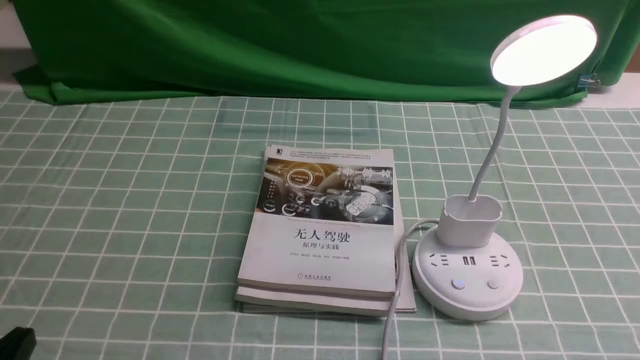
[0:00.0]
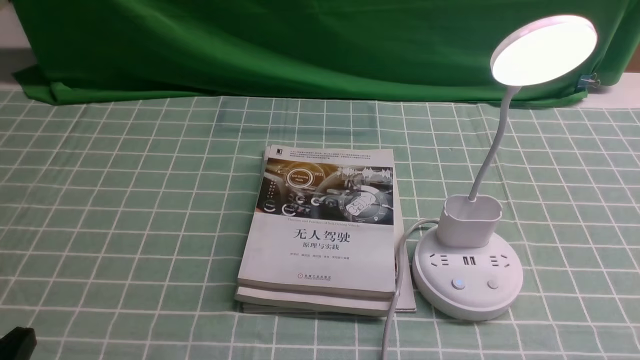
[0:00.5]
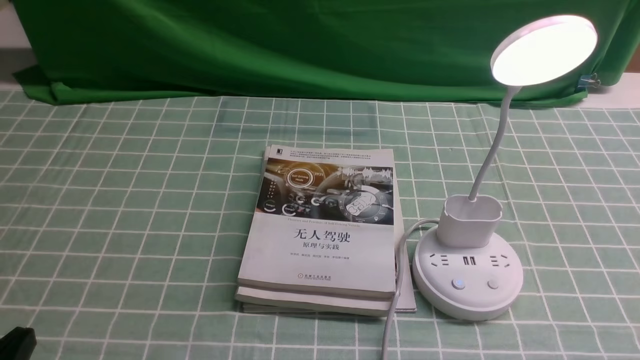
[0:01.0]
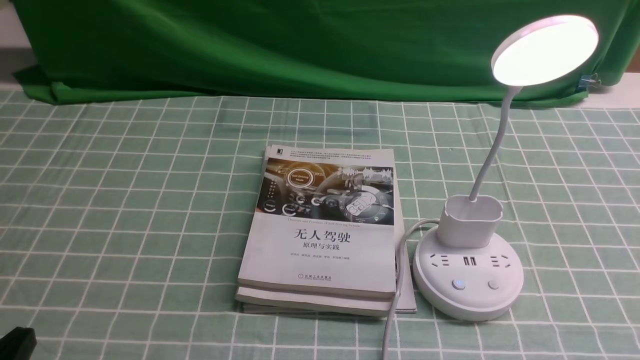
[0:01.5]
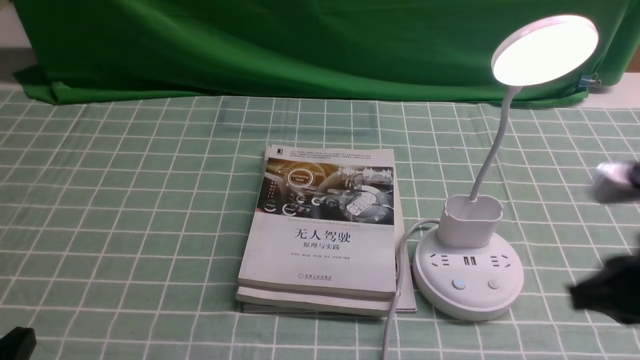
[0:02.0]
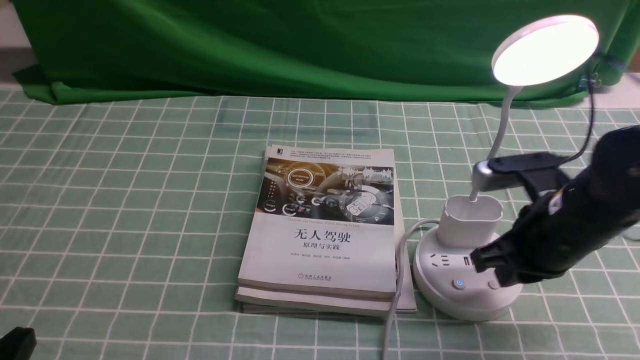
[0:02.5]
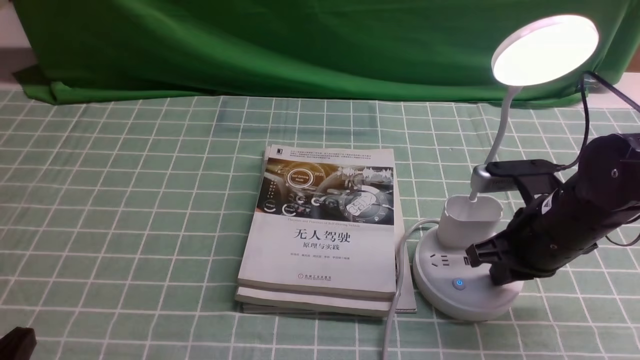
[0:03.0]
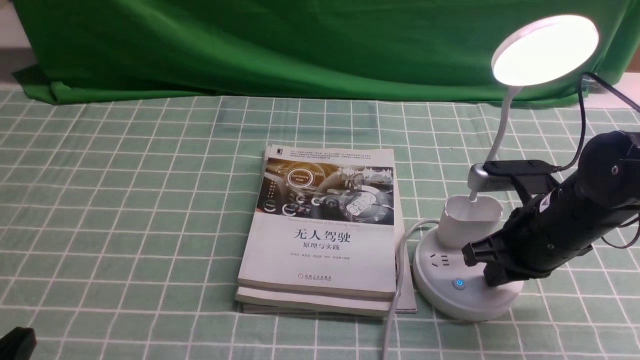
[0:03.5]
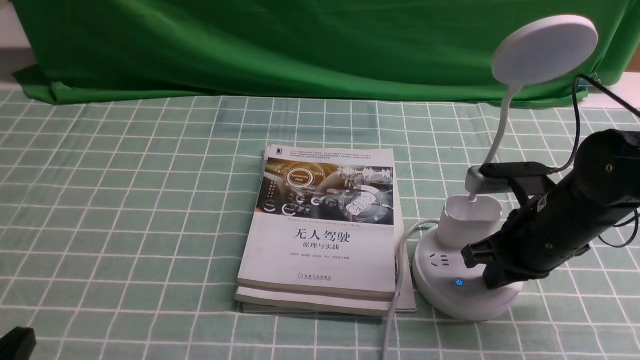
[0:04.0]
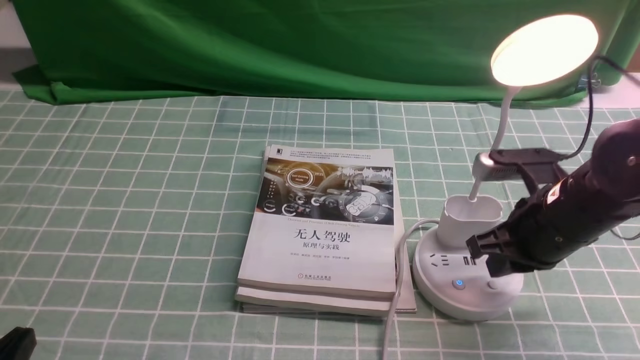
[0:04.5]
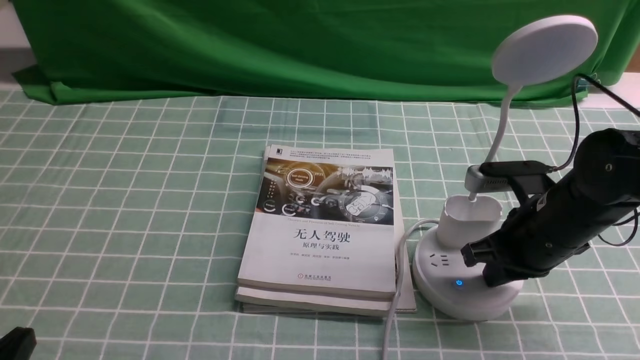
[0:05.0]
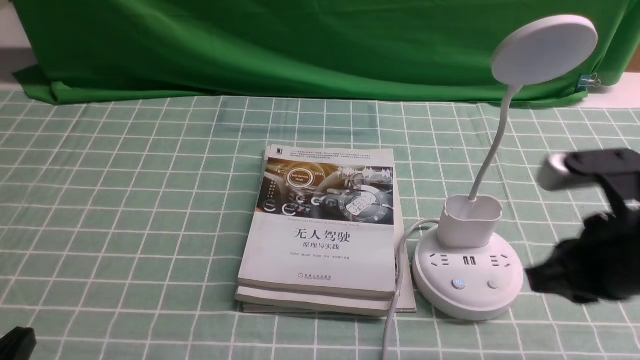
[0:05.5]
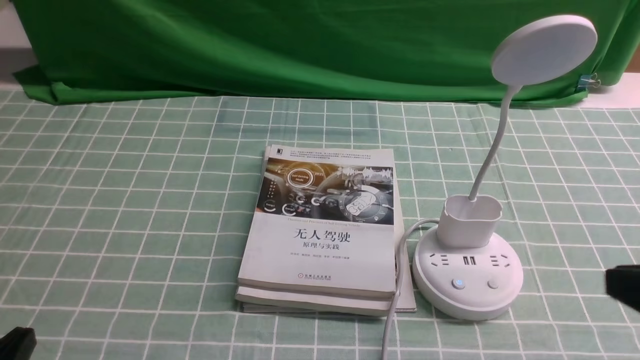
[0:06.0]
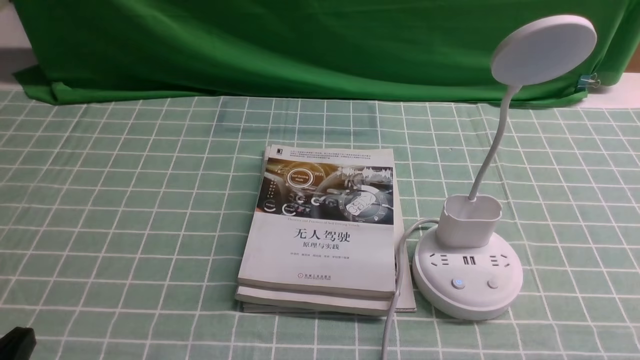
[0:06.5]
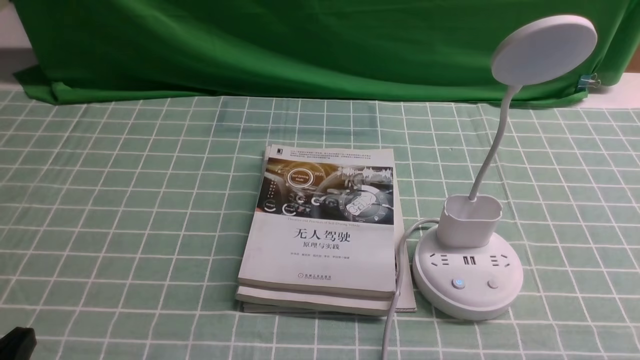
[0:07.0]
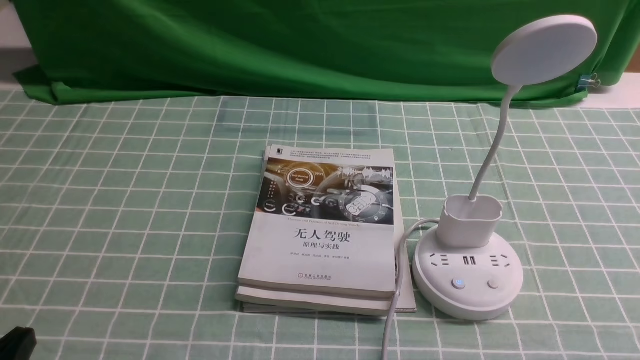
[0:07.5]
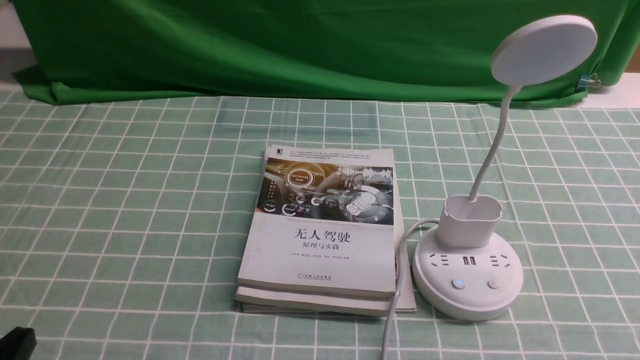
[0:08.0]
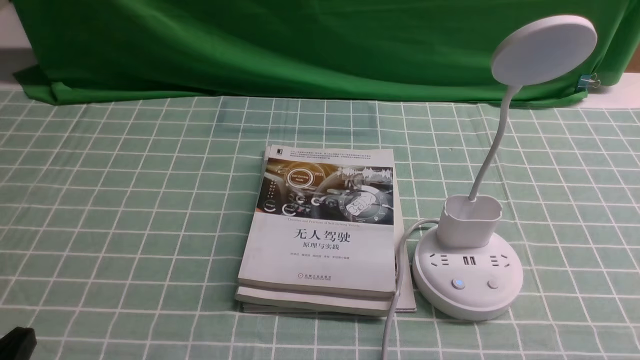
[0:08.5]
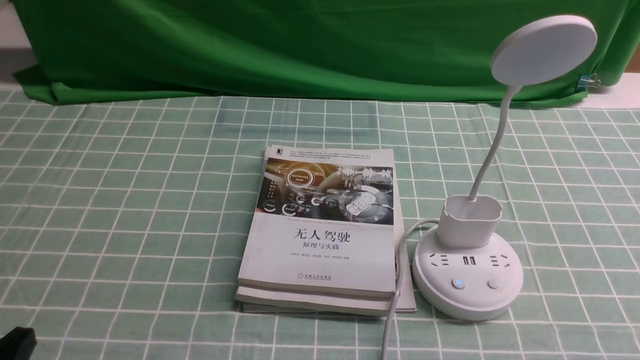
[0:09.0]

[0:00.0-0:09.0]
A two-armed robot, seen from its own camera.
Task of the whole recording: turn off the desk lamp on the blue coffee tablecloth by hand.
Step, 0:00.0 to 0:05.0: use the right arm to press the button switch on the lamp holder.
0:00.0 to 0:02.0: The right gripper heads forward, upward and to the left, covering approximately 15 cm.
0:02.0 to 0:04.5: The right gripper heads forward and downward, covering about 15 cm.
0:04.5 to 0:07.0: The right gripper heads backward, covering approximately 25 cm.

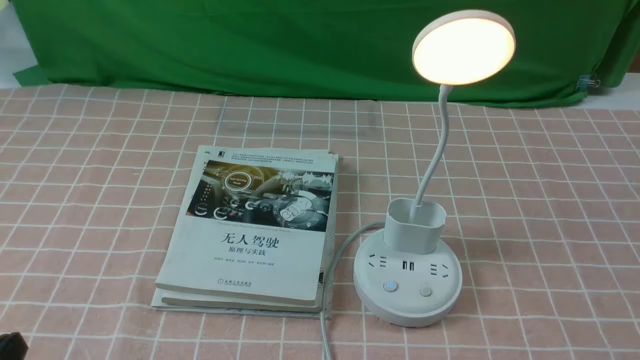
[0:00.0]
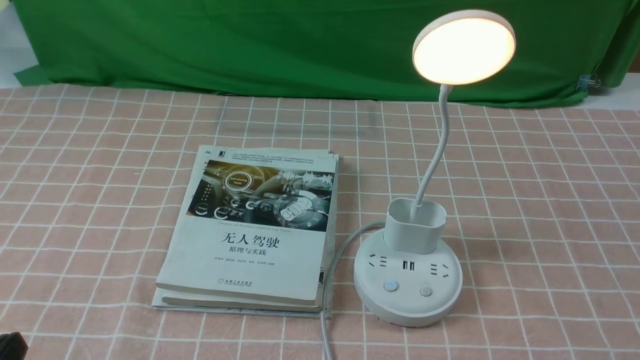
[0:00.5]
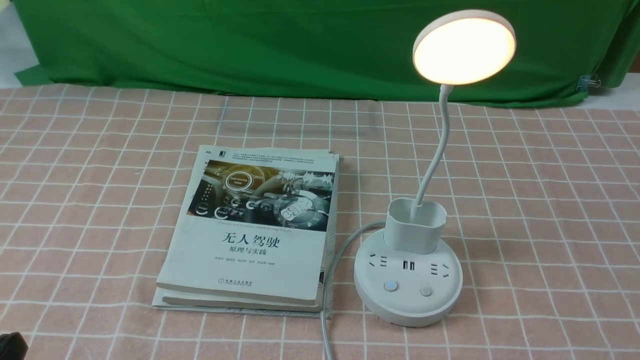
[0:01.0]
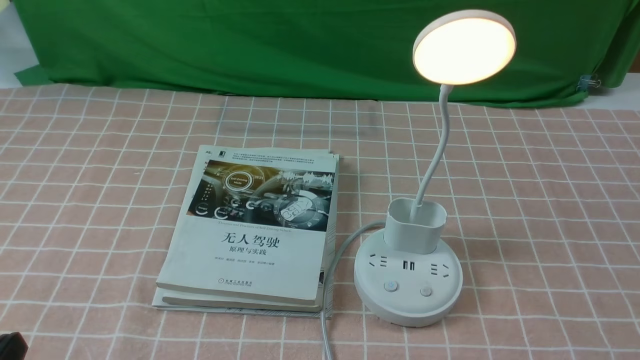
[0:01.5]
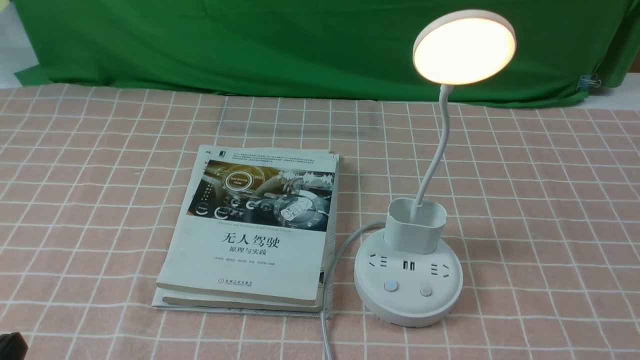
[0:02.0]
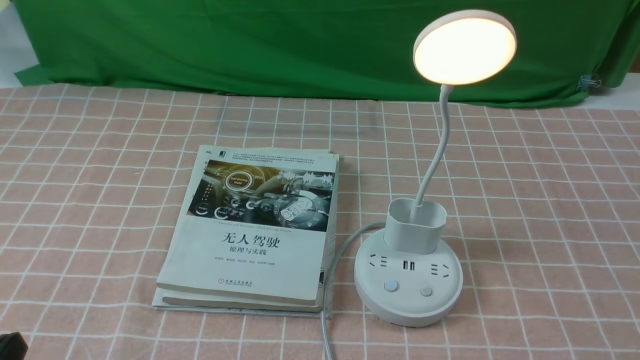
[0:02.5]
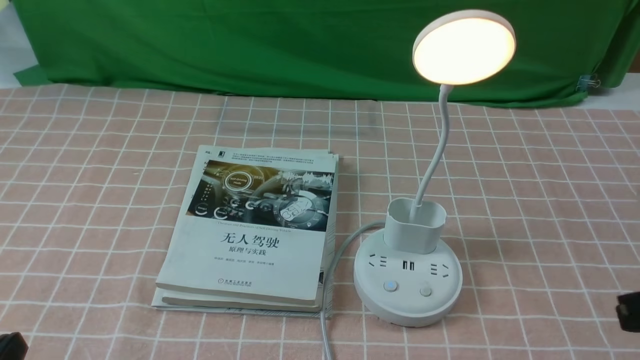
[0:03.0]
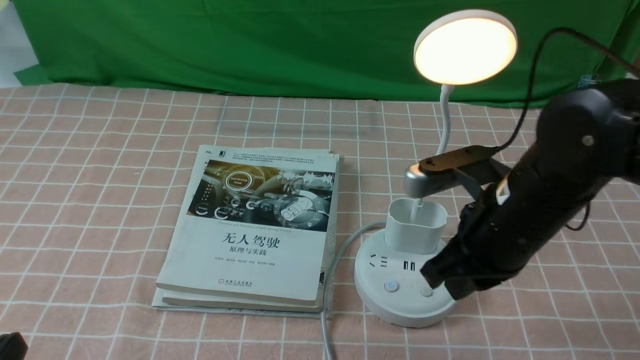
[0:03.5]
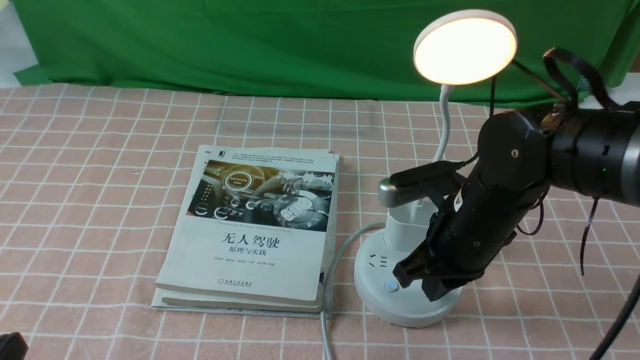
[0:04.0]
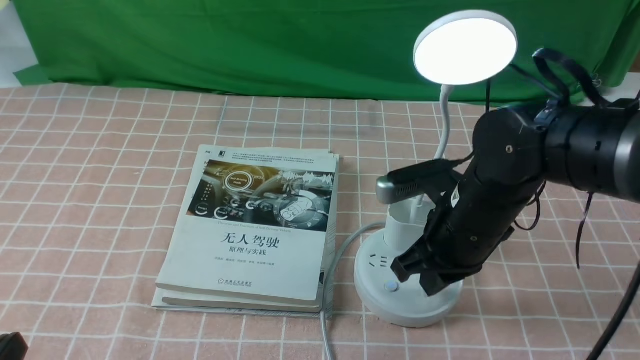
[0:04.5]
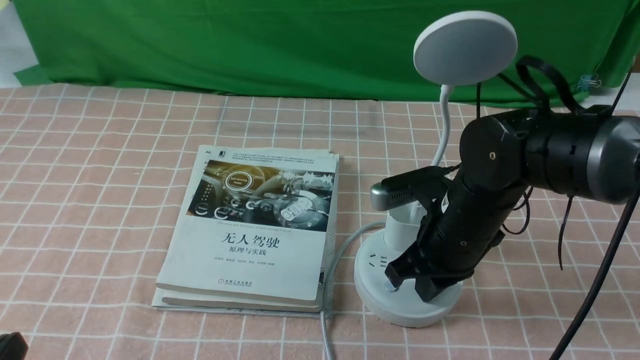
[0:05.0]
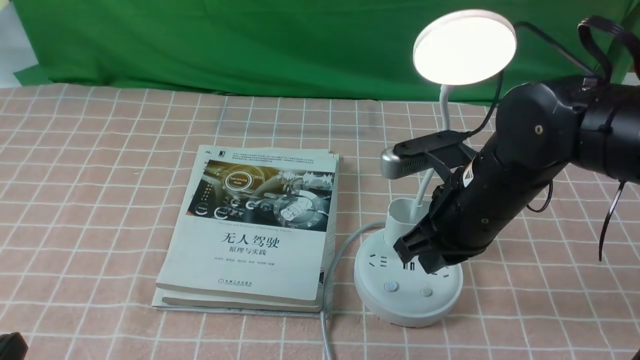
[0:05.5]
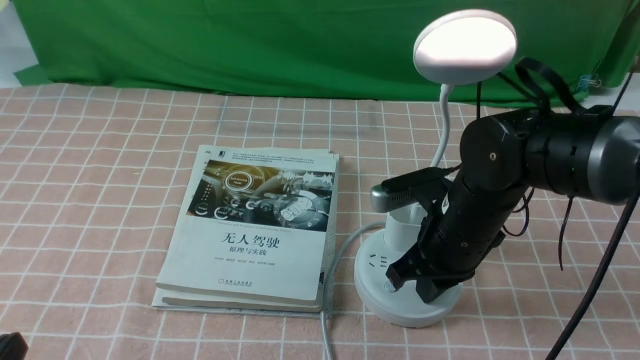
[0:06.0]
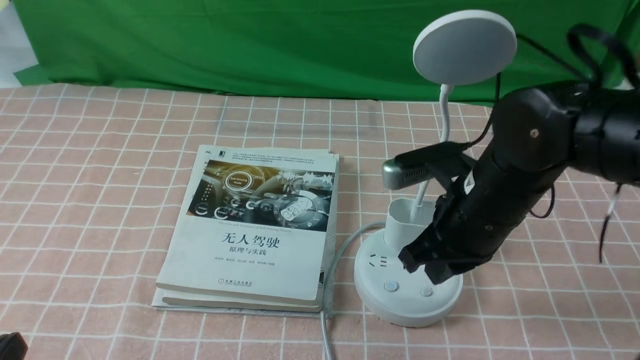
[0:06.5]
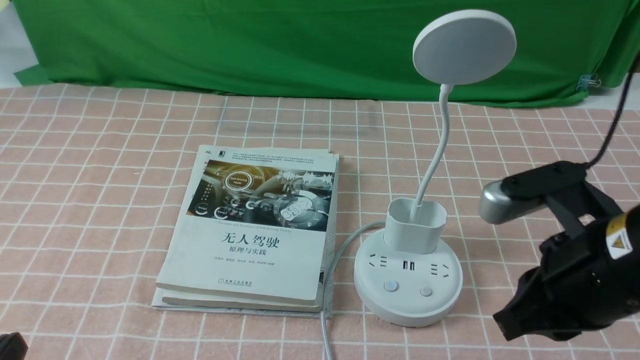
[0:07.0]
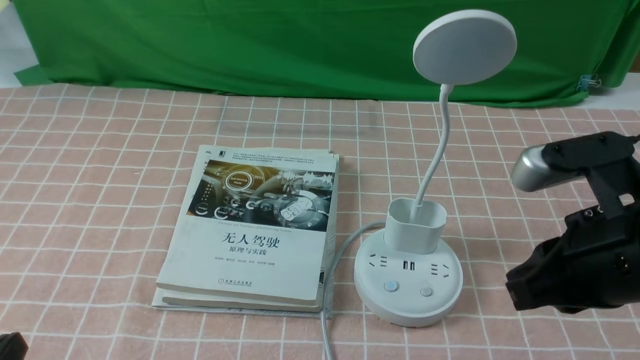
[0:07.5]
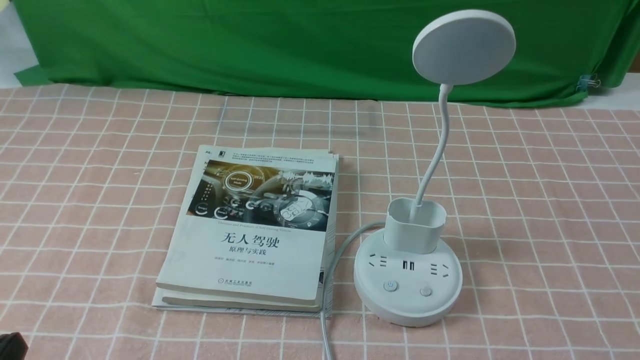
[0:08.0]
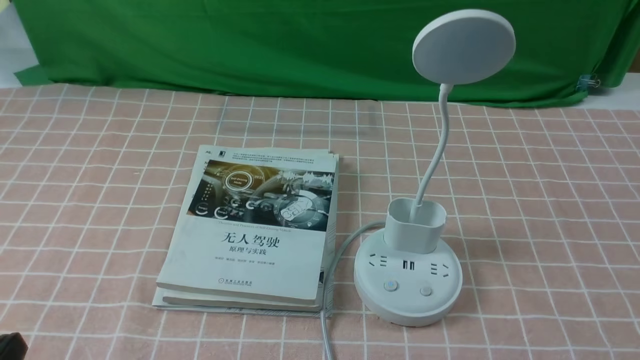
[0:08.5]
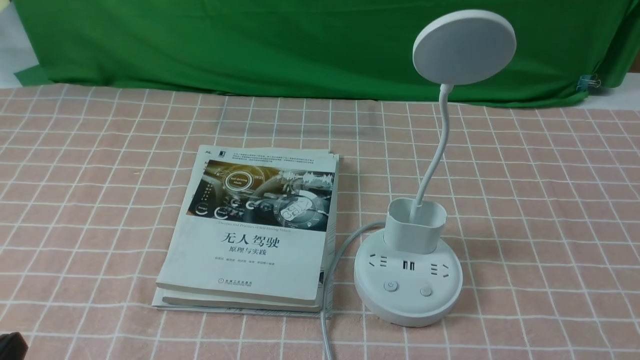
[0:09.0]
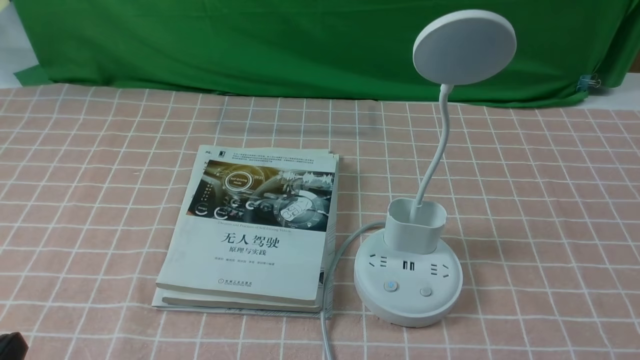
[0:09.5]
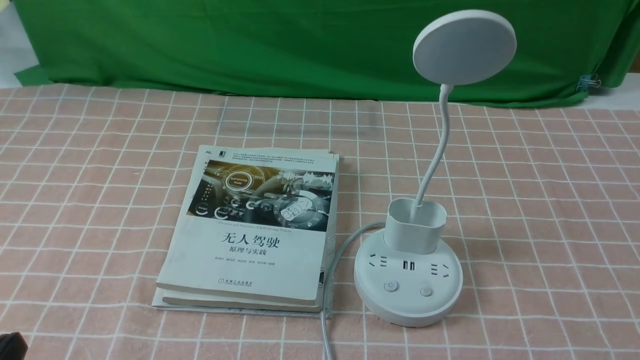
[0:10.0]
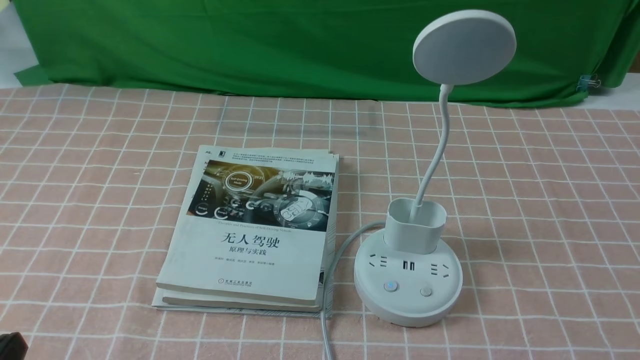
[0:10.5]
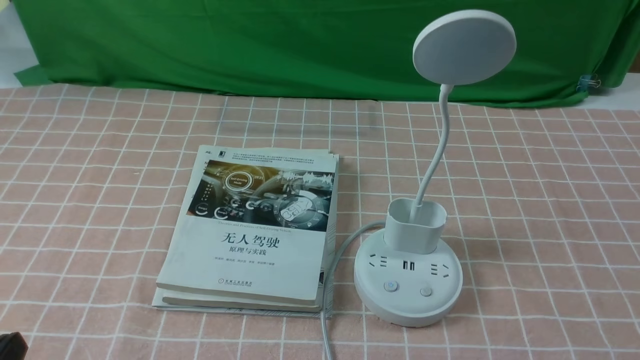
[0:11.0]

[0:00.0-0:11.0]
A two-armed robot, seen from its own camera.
Task of the whole recording: turn off the table lamp on the pink coffee tablecloth by hand.
Step, 0:00.0 to 0:06.0: use the right arm to press the button switch on the lamp holder.
0:02.0 to 0:03.5: The right gripper shifts some 25 cm forward and to the left, and closes its fingers.
0:05.5 to 0:07.5: The right gripper goes approximately 15 cm backward, to the right and upward.
0:07.5 to 0:09.0: The right gripper is displaced backward, downward and to the right by roughly 20 cm.
